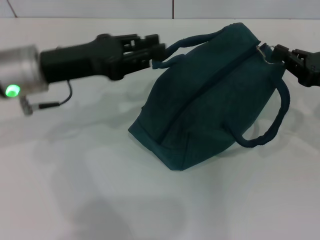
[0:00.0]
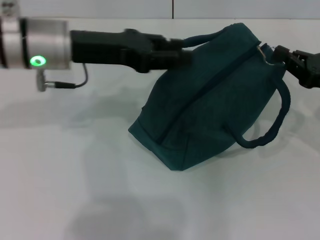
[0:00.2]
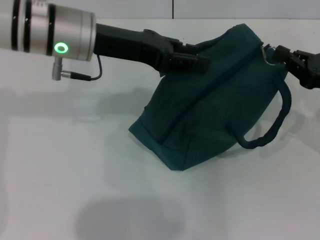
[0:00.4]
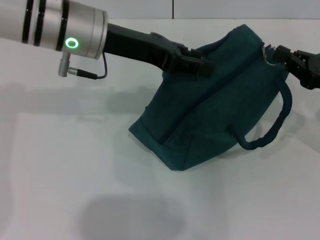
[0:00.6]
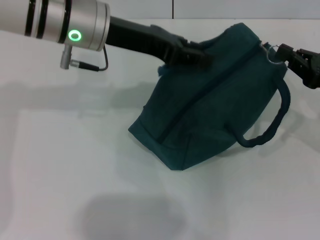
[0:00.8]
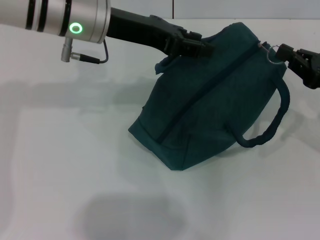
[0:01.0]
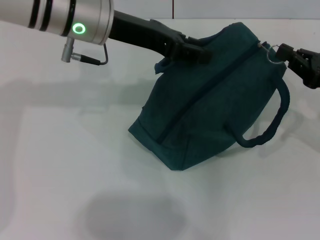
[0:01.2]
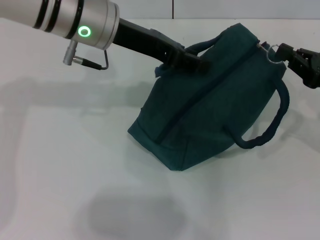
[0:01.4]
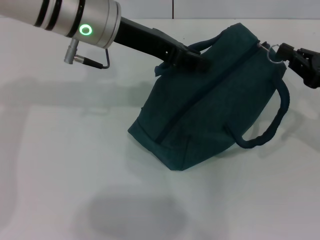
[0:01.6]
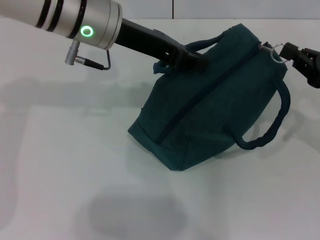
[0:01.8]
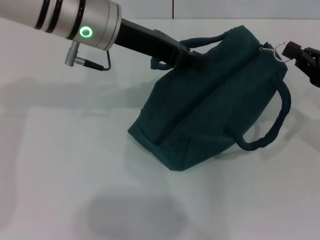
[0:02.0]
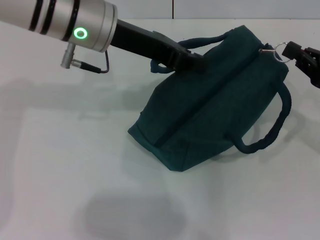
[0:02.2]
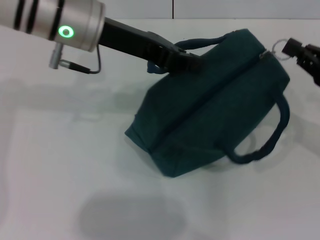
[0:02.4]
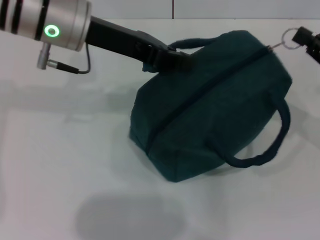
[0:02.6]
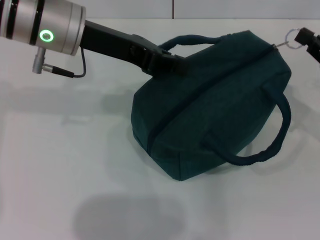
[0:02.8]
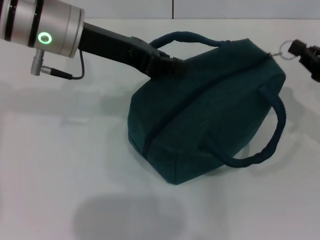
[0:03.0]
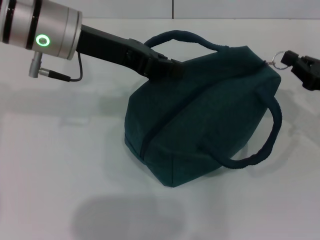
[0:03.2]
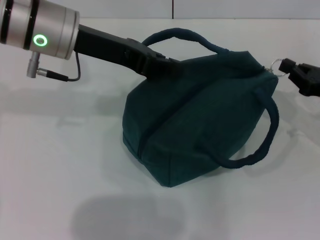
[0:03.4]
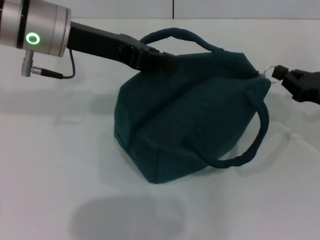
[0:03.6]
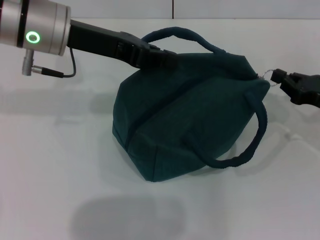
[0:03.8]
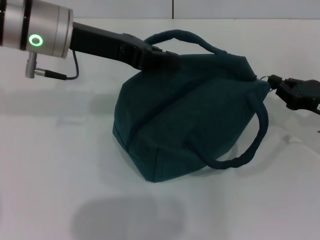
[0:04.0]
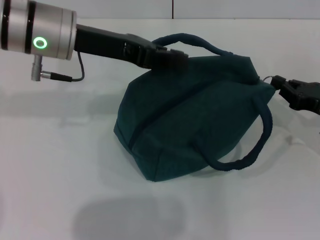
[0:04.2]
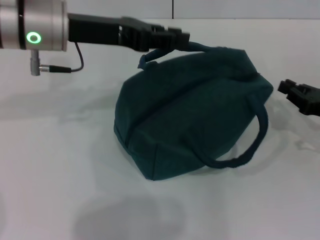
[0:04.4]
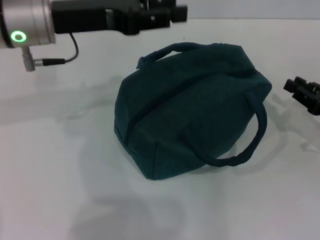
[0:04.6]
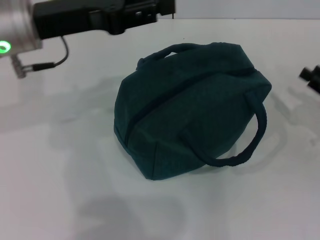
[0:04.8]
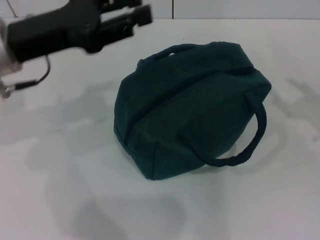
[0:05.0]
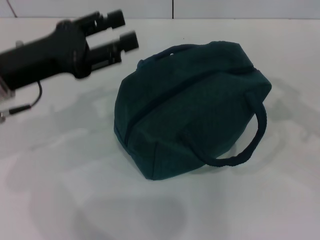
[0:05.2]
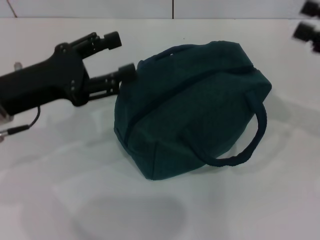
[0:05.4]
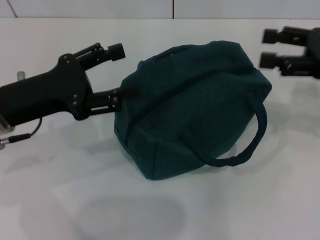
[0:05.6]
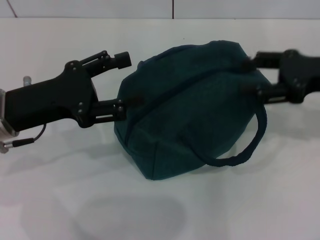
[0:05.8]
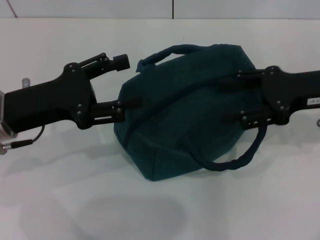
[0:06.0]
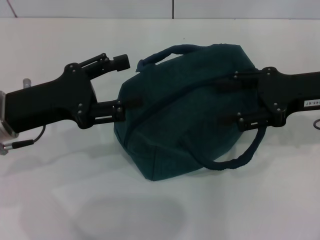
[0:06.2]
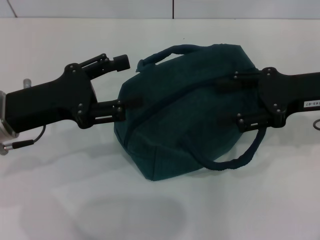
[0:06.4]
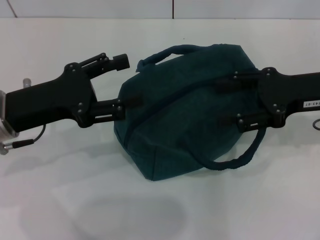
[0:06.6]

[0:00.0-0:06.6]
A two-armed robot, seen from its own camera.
Step, 0:00.0 to 0:04.2: Hold the lunch bag with your left hand.
0:00.0 to 0:01.6: The left gripper shifts roughly 15 cm to the right, upward and forward.
0:01.6 to 0:03.2: The left gripper closes up.
0:03.2 to 0:05.0: The right gripper moves approximately 5 cm, and opens. Meanwhile the left gripper moves to the left, some 5 cm, and opens up.
0:05.0 to 0:06.6: The right gripper travels to the left and upward by about 15 cm. Meanwhile the left gripper goes roughly 5 cm downward, and opens.

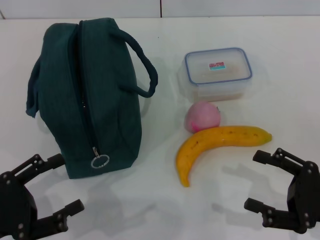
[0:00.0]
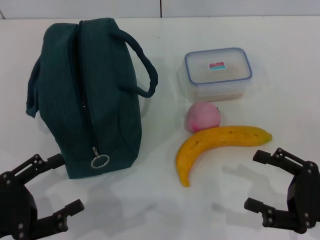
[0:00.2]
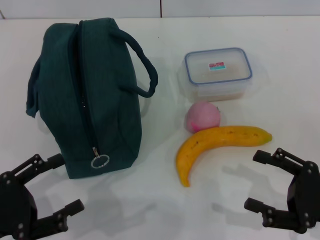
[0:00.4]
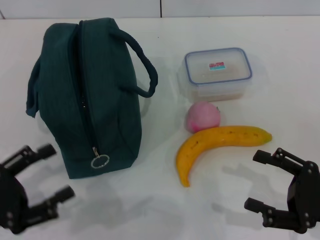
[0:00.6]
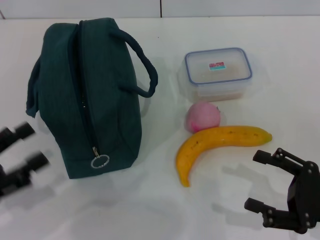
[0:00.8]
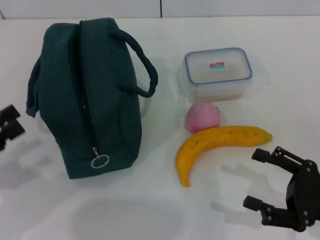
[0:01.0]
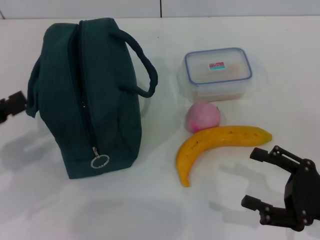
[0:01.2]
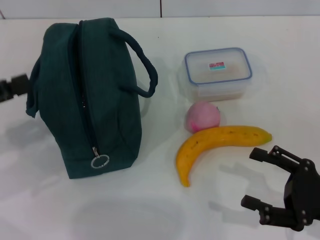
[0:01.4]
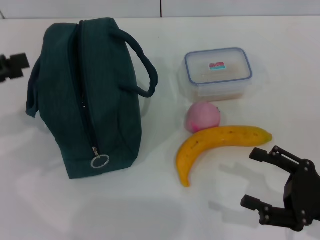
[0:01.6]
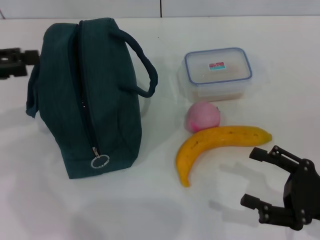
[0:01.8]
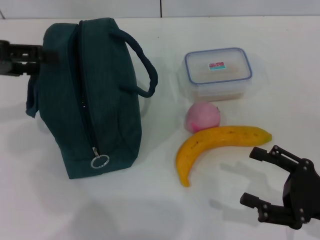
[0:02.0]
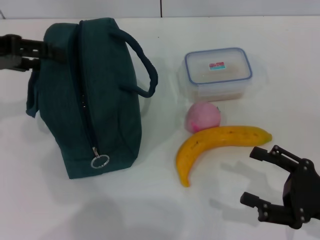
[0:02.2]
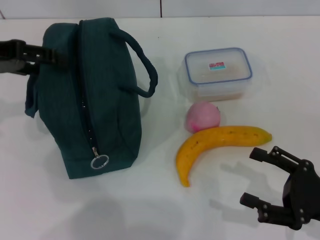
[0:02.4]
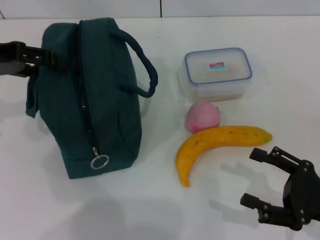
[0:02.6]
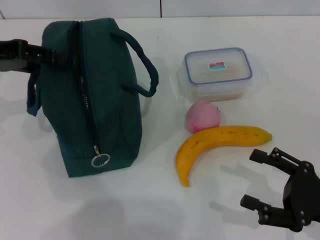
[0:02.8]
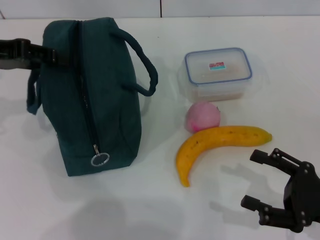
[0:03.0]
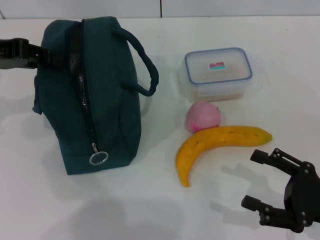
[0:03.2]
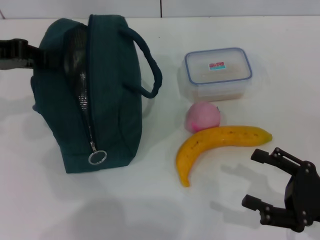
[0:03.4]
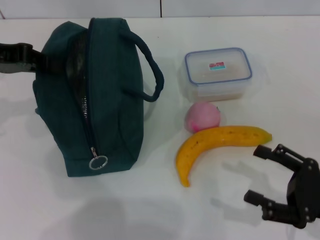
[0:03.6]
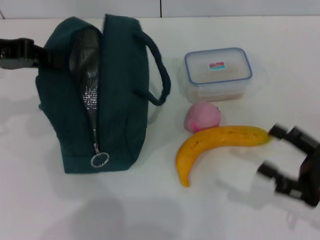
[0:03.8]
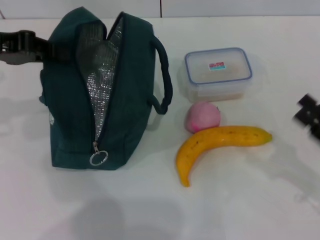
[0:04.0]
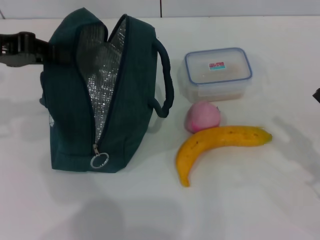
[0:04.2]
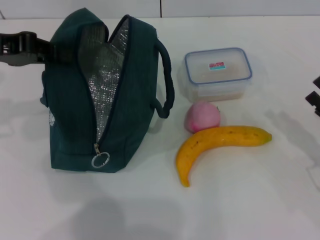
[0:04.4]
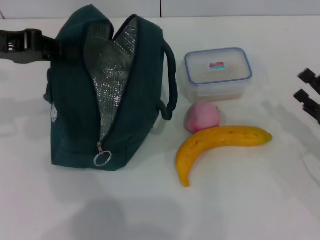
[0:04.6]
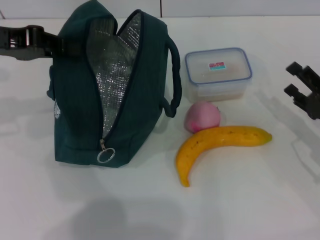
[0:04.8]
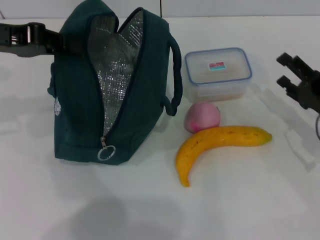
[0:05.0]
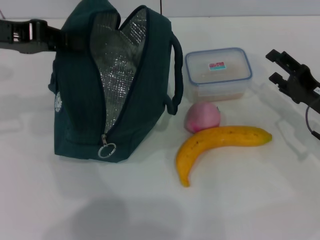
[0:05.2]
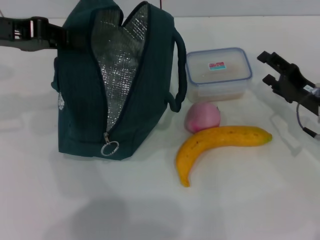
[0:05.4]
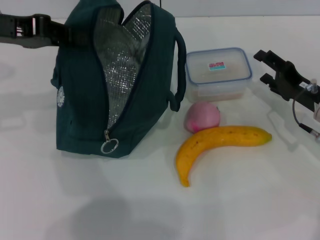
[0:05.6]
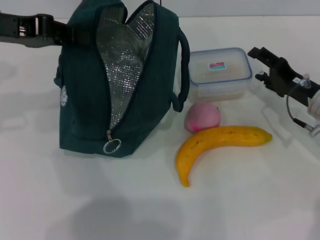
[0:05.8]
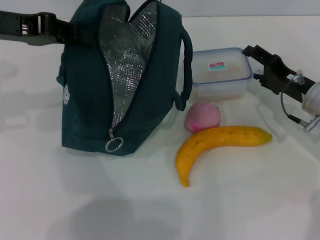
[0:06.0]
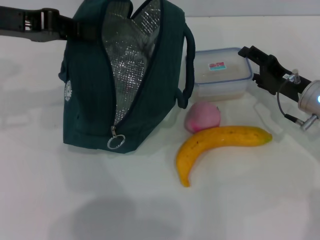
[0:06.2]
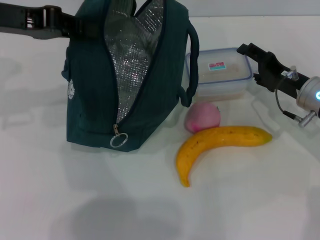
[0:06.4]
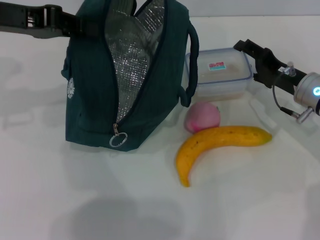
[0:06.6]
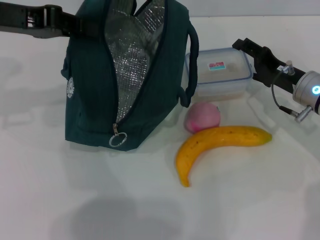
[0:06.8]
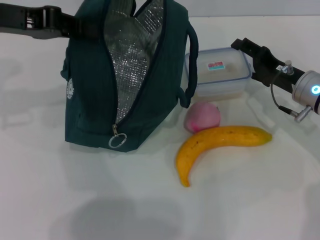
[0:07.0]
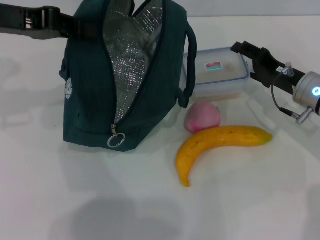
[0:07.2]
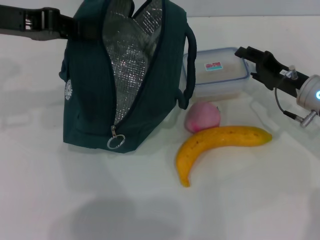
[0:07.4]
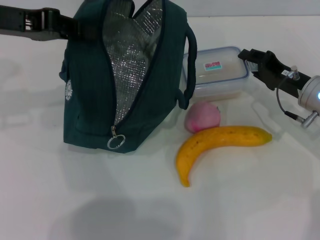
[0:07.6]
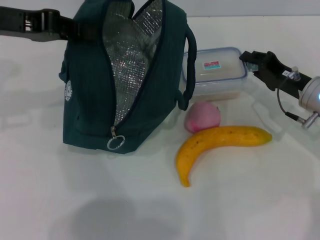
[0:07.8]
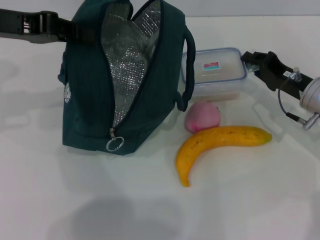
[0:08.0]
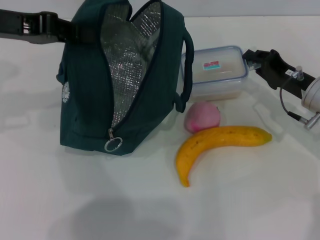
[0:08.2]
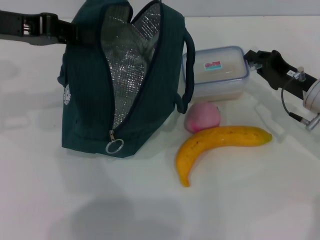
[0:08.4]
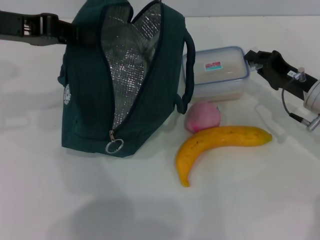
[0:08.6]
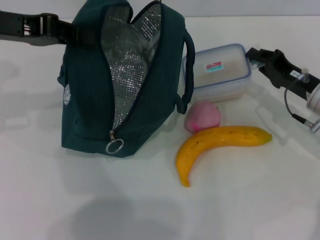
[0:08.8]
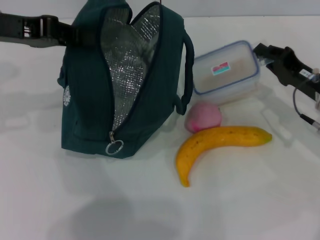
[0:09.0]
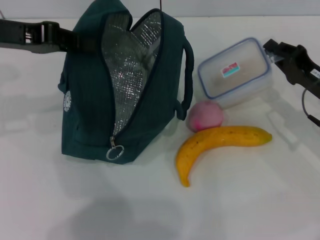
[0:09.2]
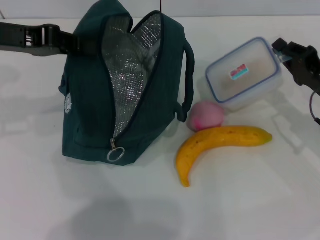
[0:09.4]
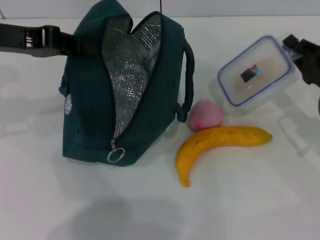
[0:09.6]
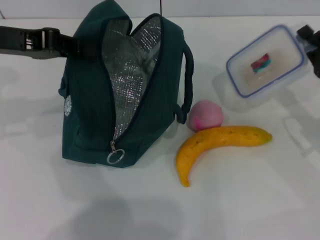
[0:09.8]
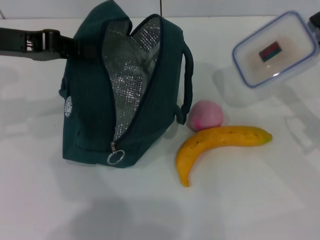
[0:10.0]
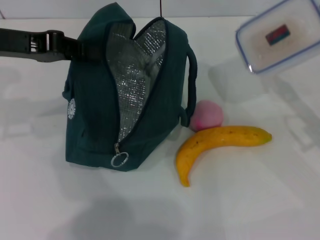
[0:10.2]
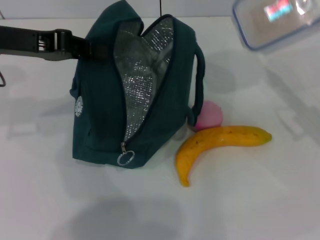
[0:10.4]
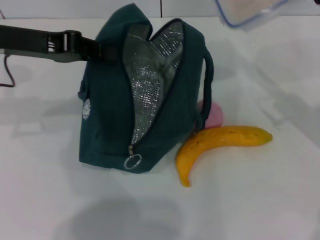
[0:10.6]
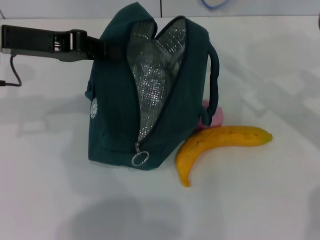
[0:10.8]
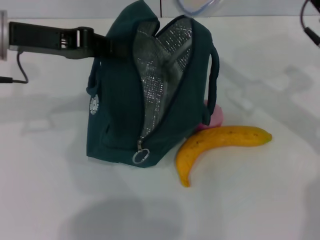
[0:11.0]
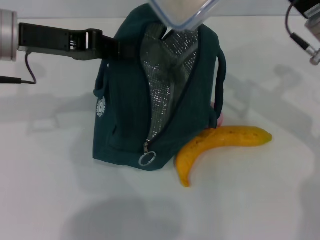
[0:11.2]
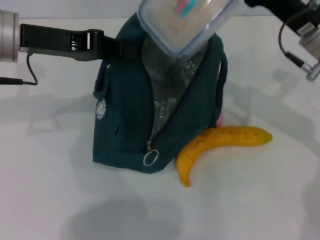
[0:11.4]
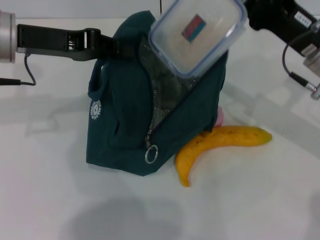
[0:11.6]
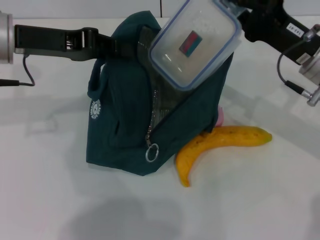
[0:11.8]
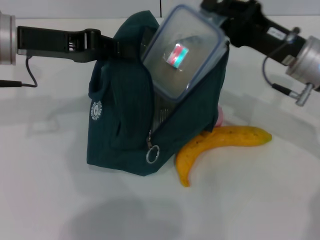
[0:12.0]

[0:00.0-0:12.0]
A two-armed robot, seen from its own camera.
Step, 0:00.0 to 0:03.8: Hold the lunch bag with your left hand.
Step, 0:04.2 to 0:08.4: Pick up the lunch box with your right hand.
0:00.0 to 0:01.6: The left gripper moves forward, upward and to the left, roughly 20 cm.
0:01.6 to 0:03.0: The left gripper is displaced forward and to the right by roughly 10 cm.
0:03.0 to 0:04.4: The right gripper ends up roughly 5 cm from where it was. Meanwhile the left gripper closes its fingers.
0:04.4 to 0:06.0: The right gripper moves forward and to the left, some 15 cm.
0:06.0 to 0:07.6: The right gripper closes up.
0:07.6 to 0:09.0: The right gripper closes up.
0:09.0 to 0:10.4: The right gripper shifts about 5 cm upward.
0:10.4 to 0:12.0: The right gripper is displaced to the left by about 10 cm.

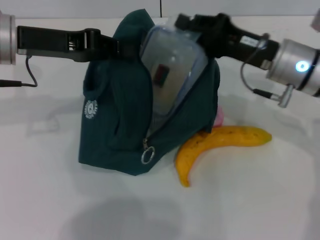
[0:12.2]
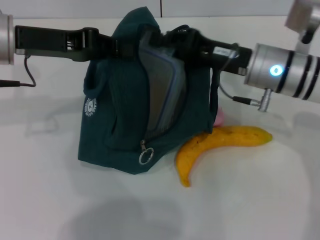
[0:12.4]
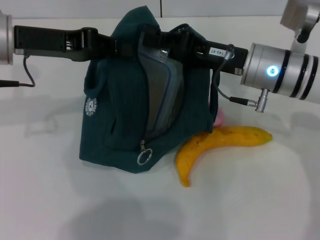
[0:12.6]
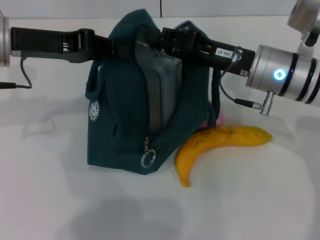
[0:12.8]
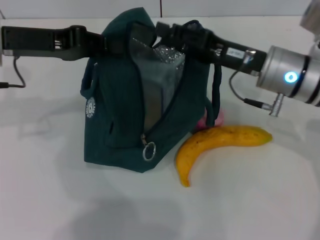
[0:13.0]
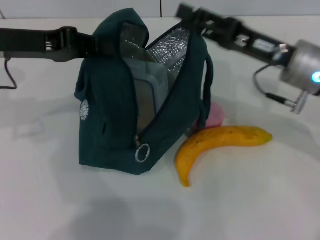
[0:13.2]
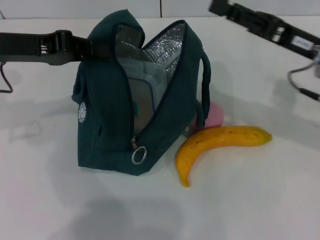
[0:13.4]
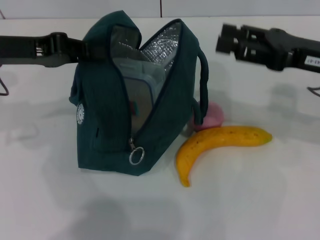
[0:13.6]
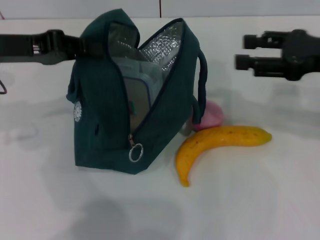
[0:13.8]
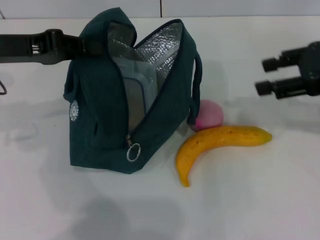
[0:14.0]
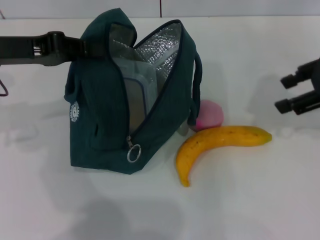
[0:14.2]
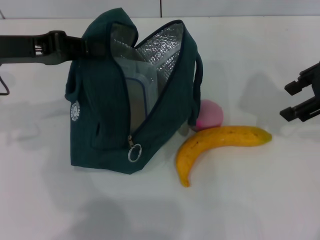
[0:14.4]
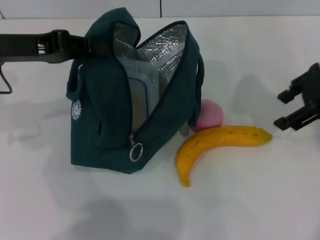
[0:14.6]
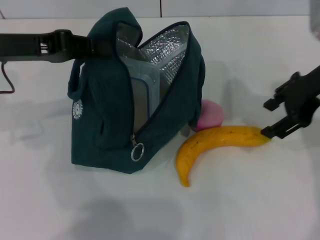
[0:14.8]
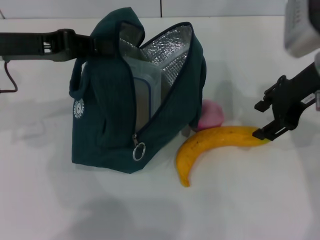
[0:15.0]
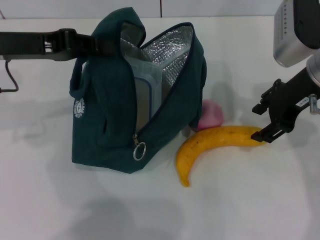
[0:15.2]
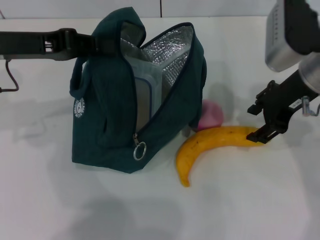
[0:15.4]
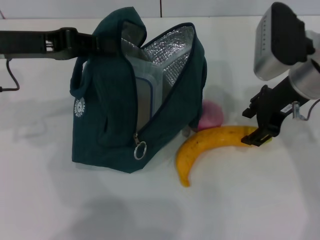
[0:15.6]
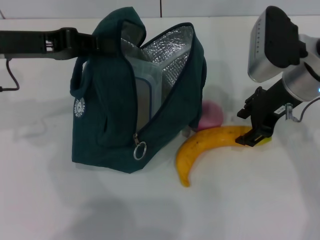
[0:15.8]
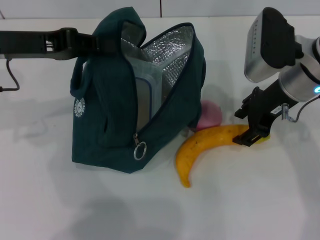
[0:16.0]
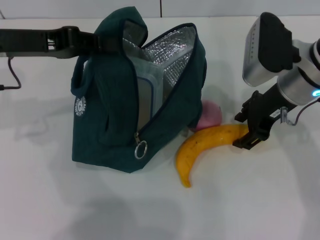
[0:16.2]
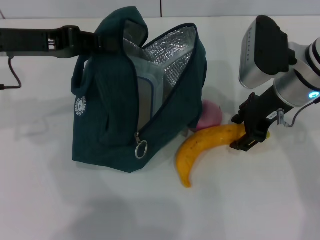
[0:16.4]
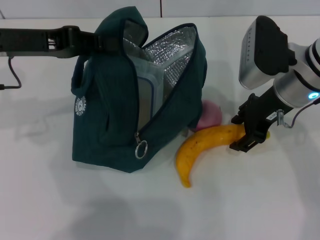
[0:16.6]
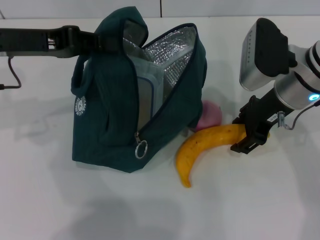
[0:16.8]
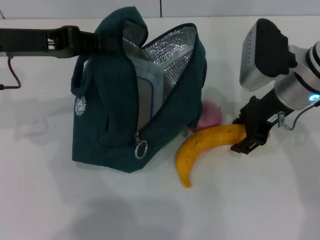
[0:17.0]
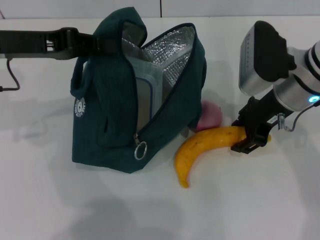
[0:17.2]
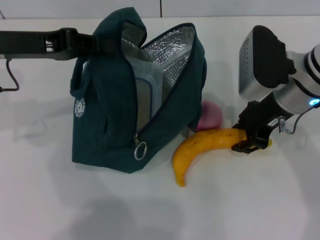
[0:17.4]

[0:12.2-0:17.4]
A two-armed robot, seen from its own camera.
0:12.2 to 0:14.0: The right gripper goes roughly 15 cm to the right and upward, and opens.
0:14.0 to 0:15.6: The right gripper is displaced to the left and downward by approximately 10 cm.
0:15.6 to 0:17.4: The grippers make only small movements.
